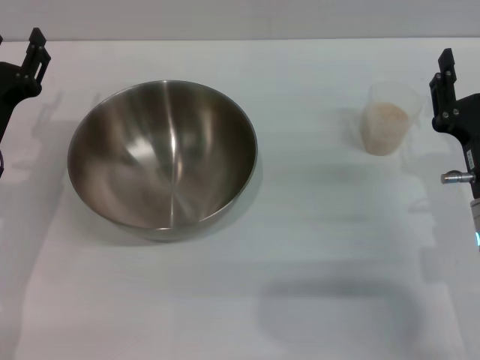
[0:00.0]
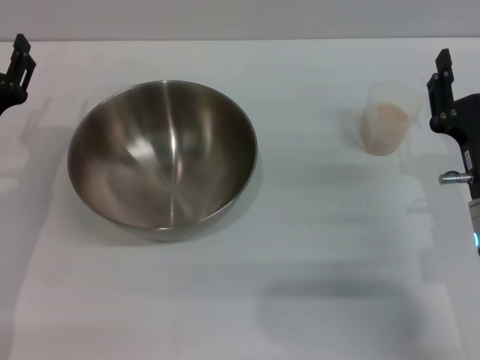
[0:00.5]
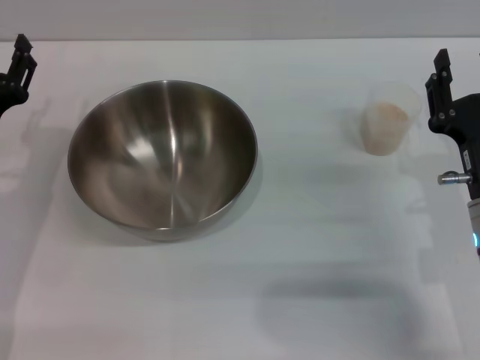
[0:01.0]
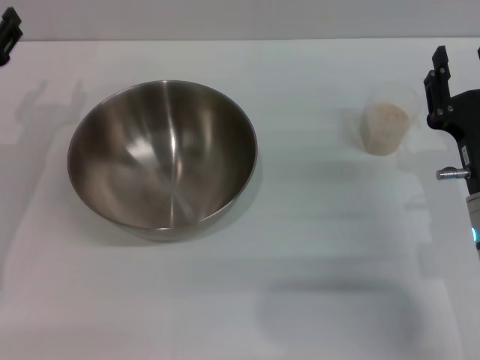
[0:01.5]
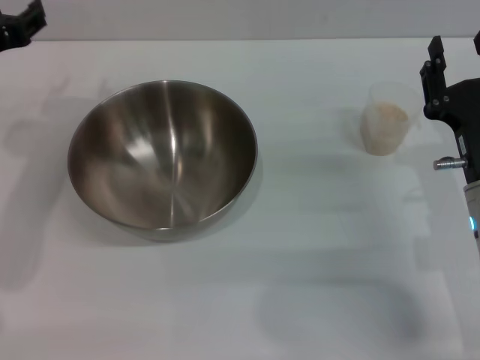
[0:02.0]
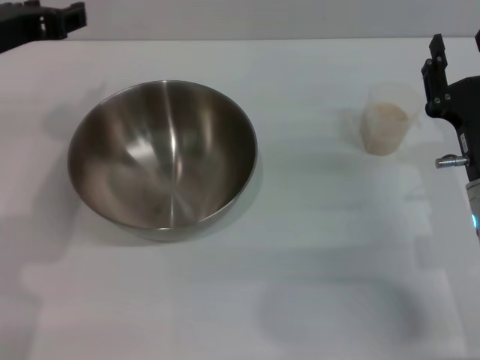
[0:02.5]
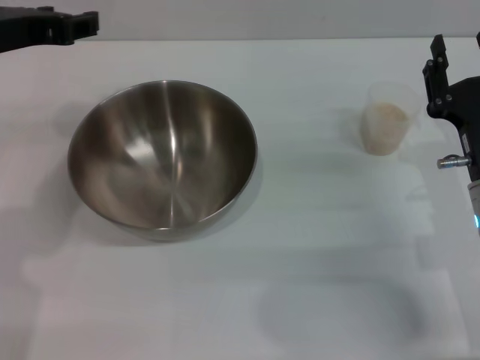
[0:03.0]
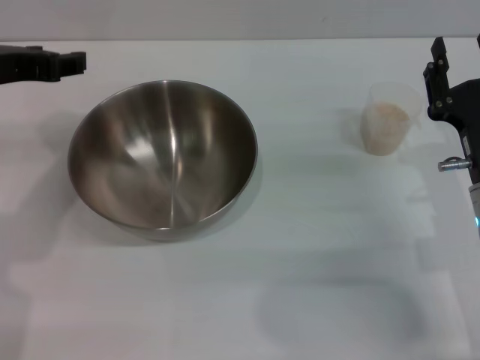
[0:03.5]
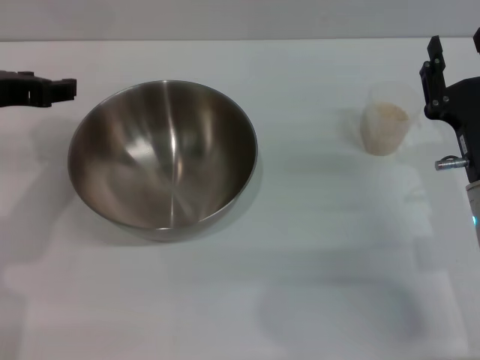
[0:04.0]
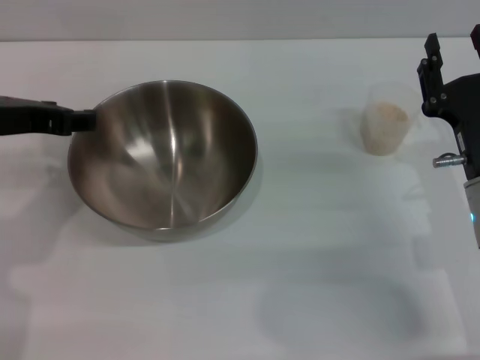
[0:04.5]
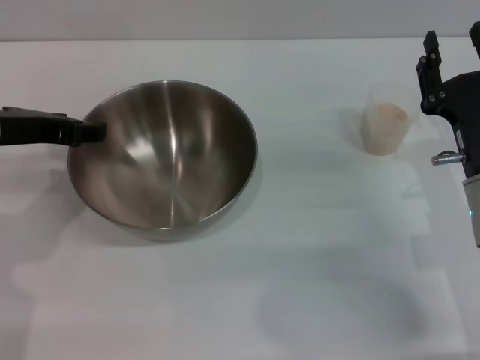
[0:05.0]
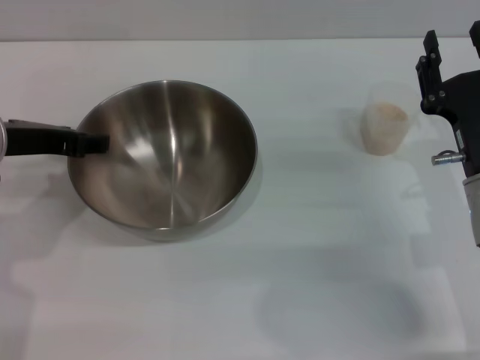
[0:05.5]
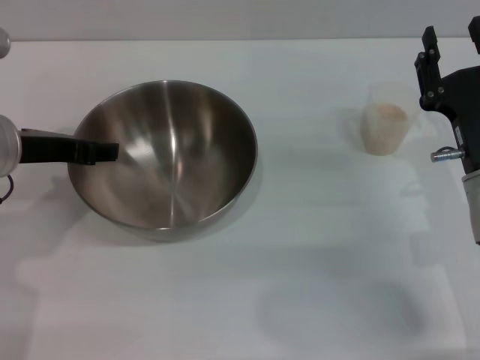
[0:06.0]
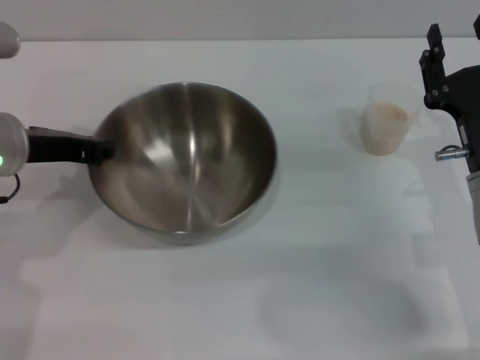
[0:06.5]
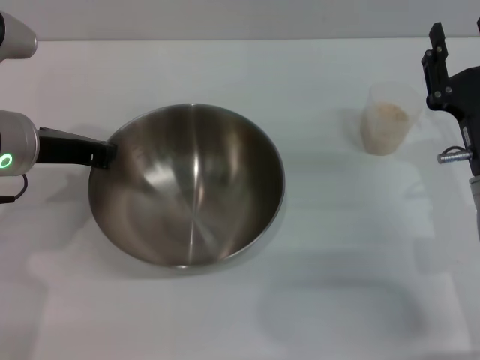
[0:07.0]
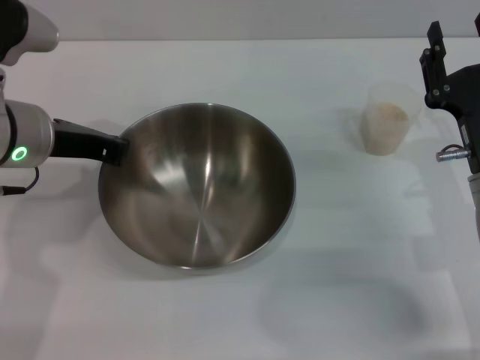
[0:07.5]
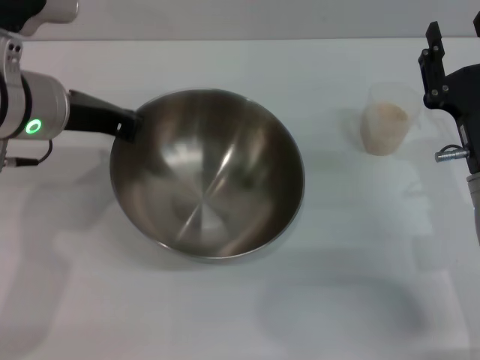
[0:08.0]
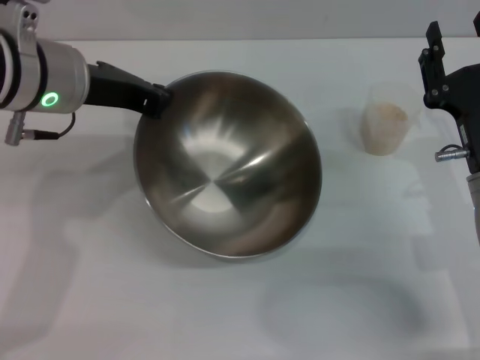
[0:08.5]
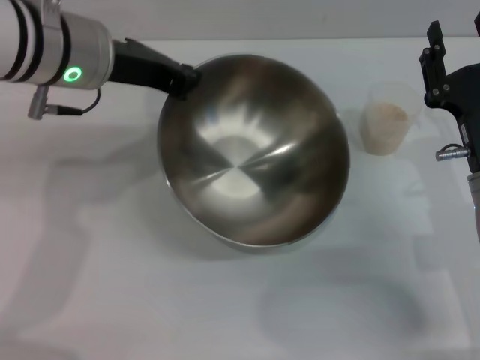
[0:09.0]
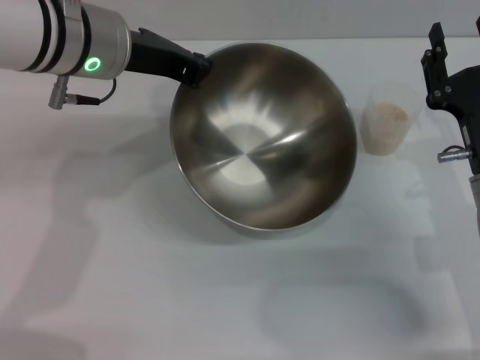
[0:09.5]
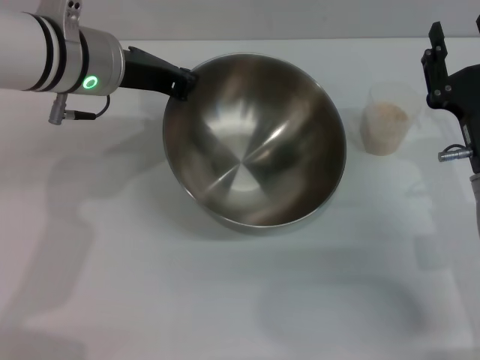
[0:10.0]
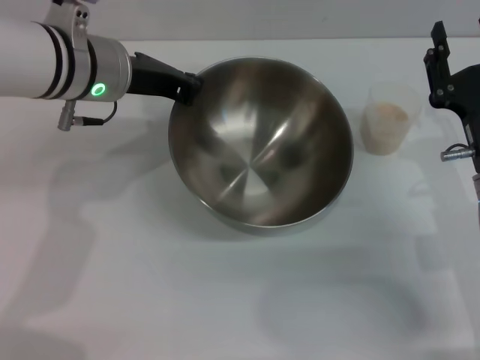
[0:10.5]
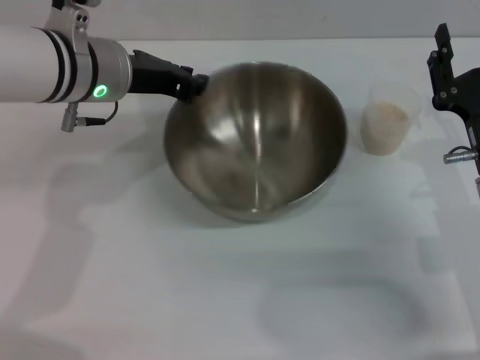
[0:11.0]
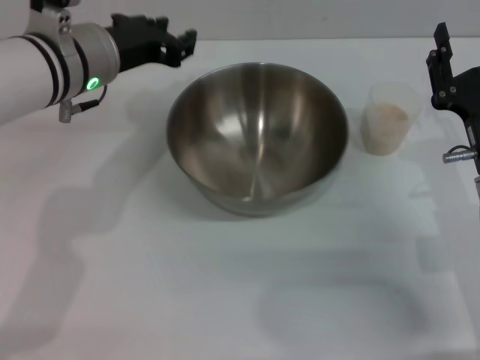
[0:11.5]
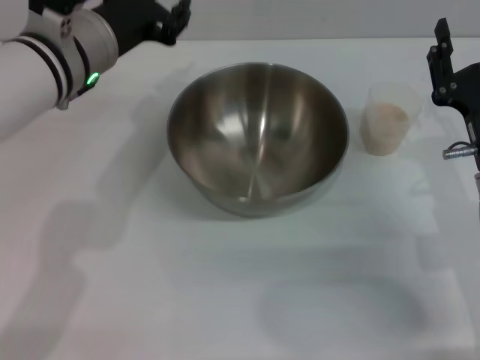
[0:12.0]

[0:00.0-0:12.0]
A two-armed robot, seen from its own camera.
Task of the whole recording: Place the bowl in the middle of the table with one hand and pour the rice from the grain cup into it with the other hand.
Step, 0:00.0 to 0:08.0: Pick up the bowl with the left gripper.
Step, 0:08.5 to 0:11.5: Place the bowl in the center of view with the left gripper.
0:00.0 to 0:02.0: The left gripper moves upward, roughly 10 cm.
0:04.0 to 0:06.0: The left gripper ends up about 5 cm from where it was.
0:06.0 to 0:08.0: The left gripper changes place by about 5 cm, and closes its fingers.
0:08.0 to 0:10.0: The left gripper changes place by about 5 cm.
0:10.0 to 0:12.0: The left gripper opens.

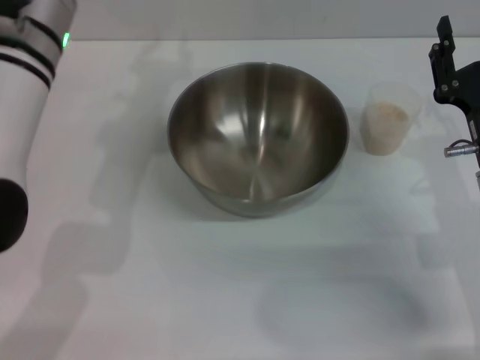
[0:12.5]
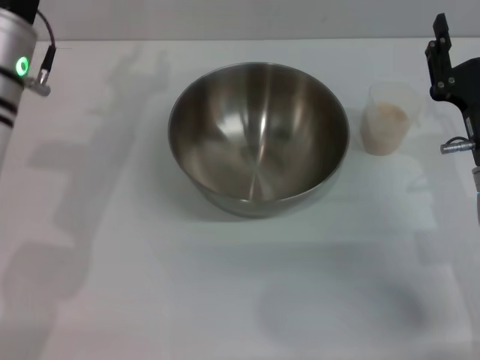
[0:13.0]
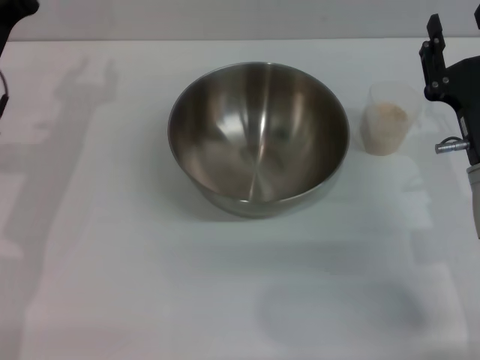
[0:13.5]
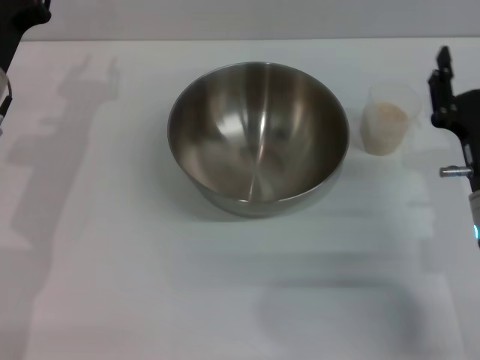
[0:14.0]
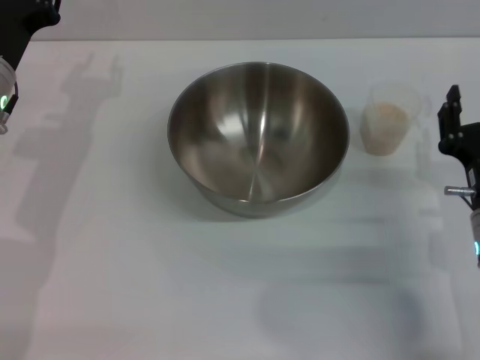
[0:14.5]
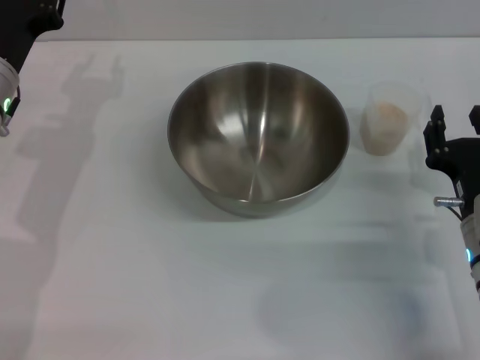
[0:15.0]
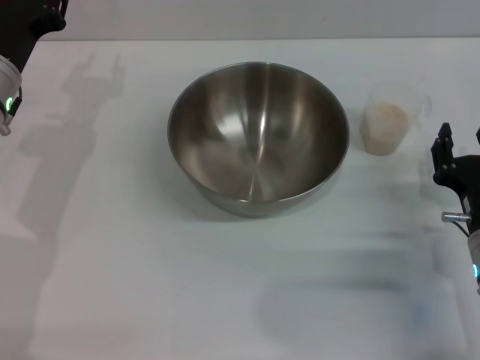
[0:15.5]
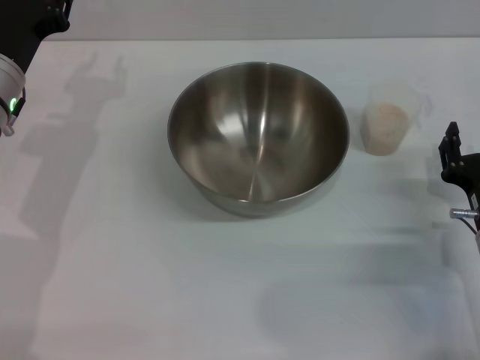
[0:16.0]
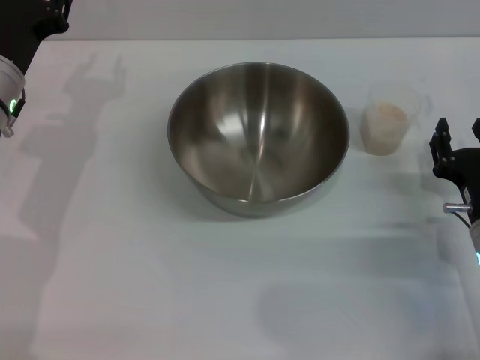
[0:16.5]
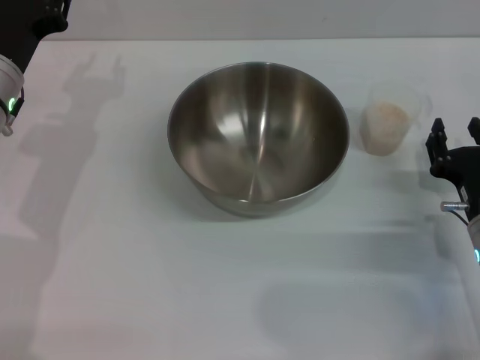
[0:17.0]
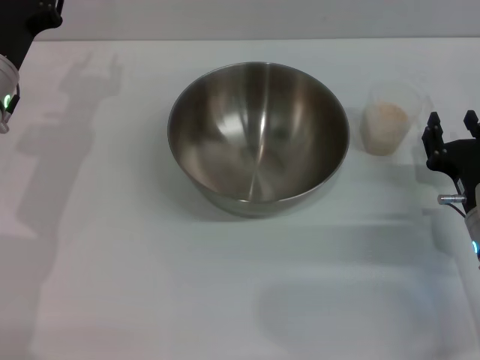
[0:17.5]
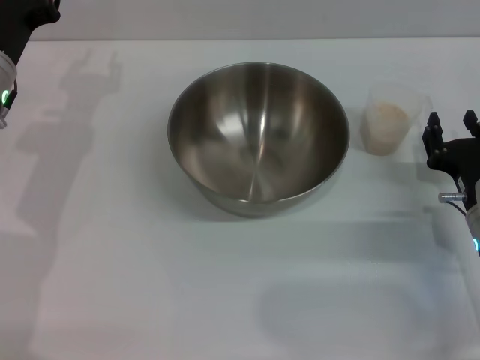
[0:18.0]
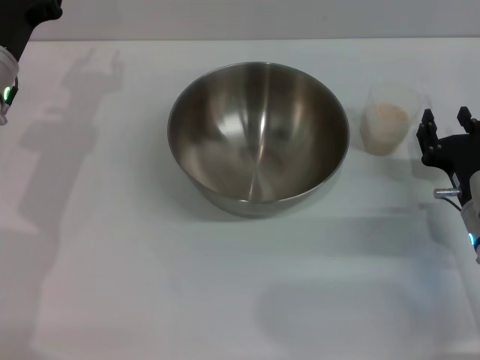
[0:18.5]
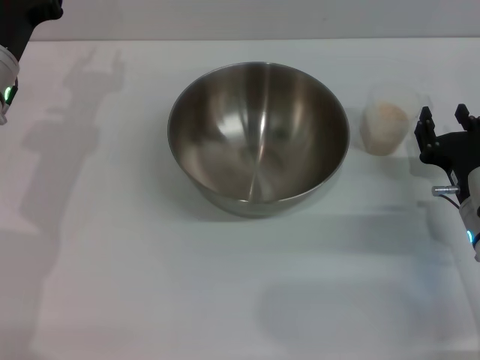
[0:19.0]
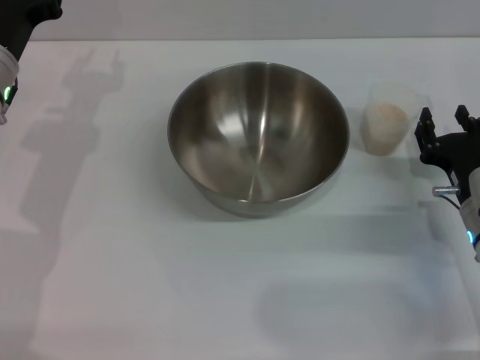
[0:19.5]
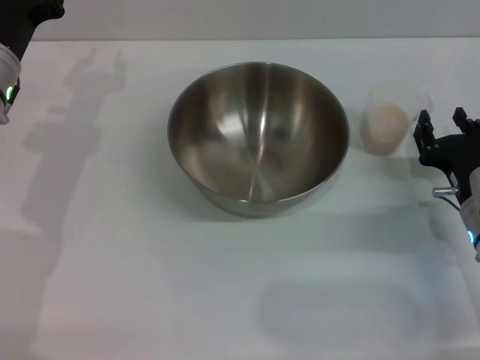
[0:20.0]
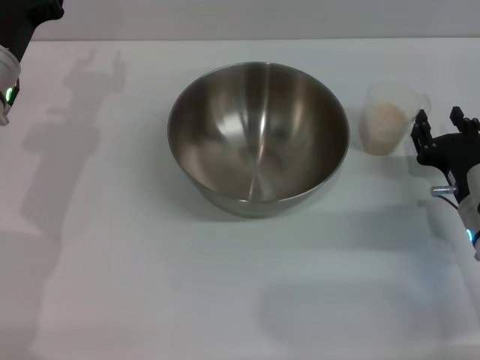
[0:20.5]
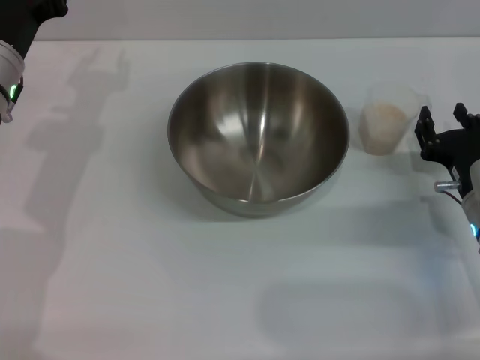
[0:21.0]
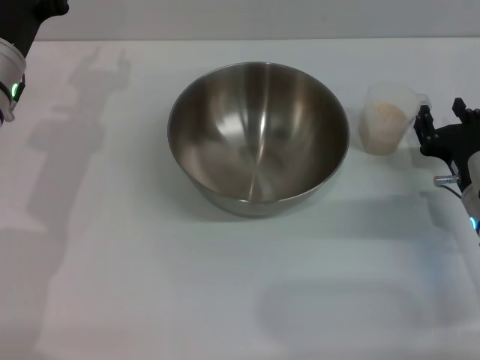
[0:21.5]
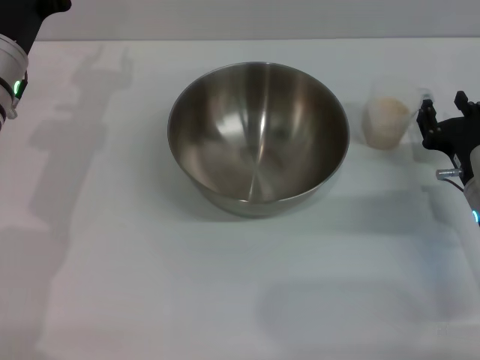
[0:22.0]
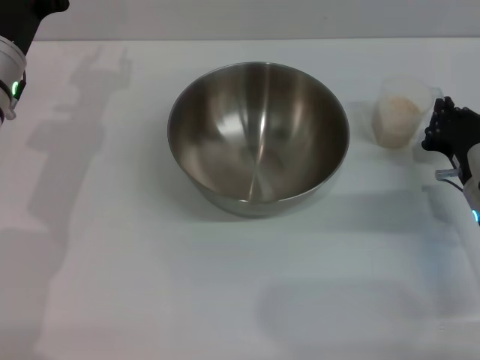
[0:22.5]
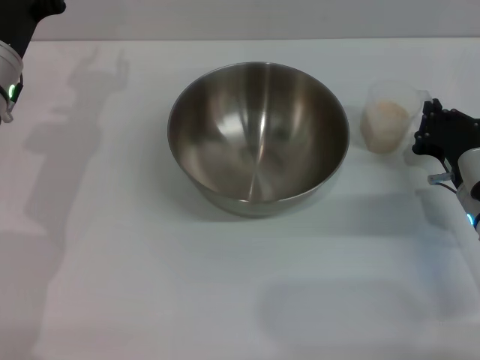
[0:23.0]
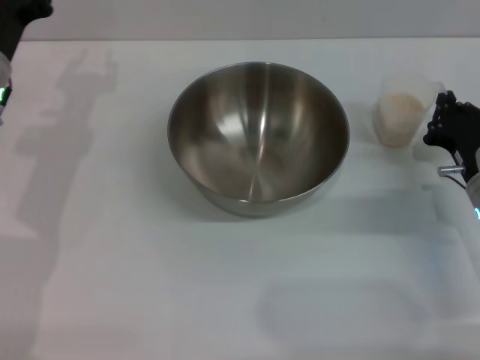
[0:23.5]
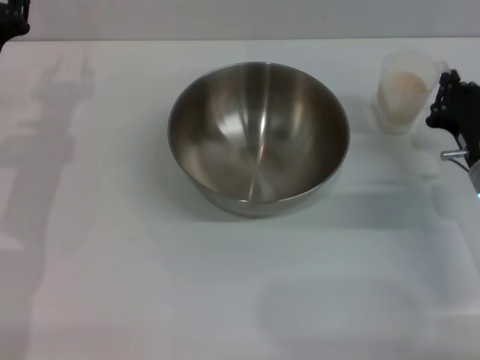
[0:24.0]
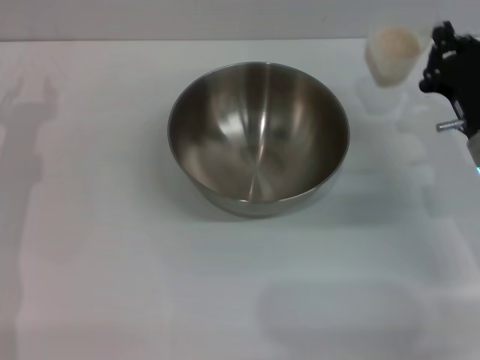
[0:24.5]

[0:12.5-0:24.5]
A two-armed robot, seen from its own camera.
Task of the whole recording: Place the bowl in the middle of the table with one hand and pour the rice from the grain cup into it with the other hand.
Step, 0:12.5 to 0:24.0: Pick up the cup with rice in it with the right gripper.
0:12.5 to 0:14.5: The left gripper moves to the left and downward, approximately 10 cm.
0:14.5 to 0:18.5: There are only small adjustments of the grippers.
0:18.5 to 0:20.5: The two grippers keep their place.
0:20.5 to 0:22.5: The right gripper closes up.
0:22.5 to 0:24.5: The left gripper travels to the left by about 5 cm.

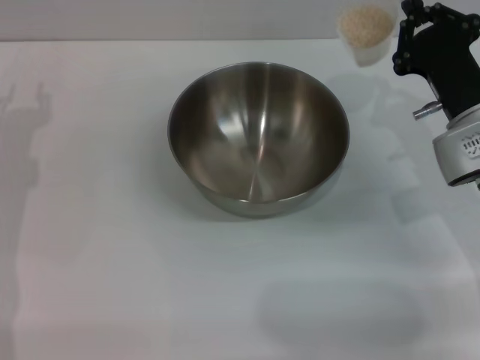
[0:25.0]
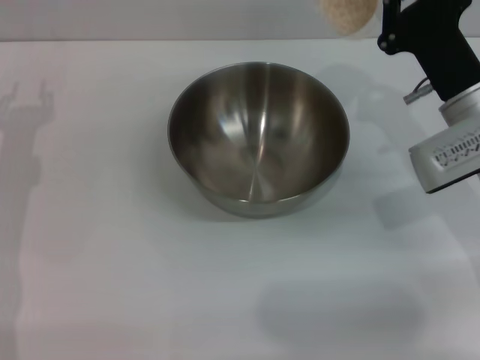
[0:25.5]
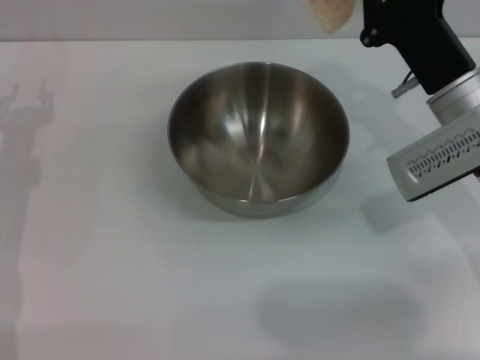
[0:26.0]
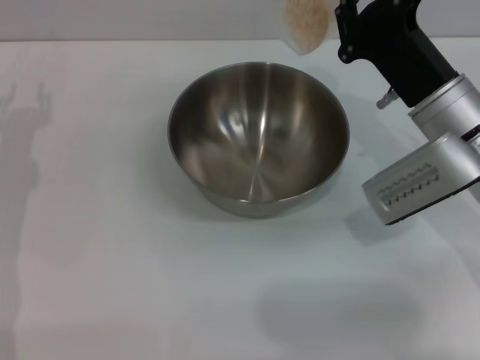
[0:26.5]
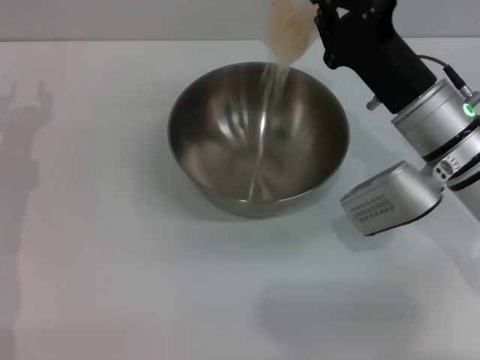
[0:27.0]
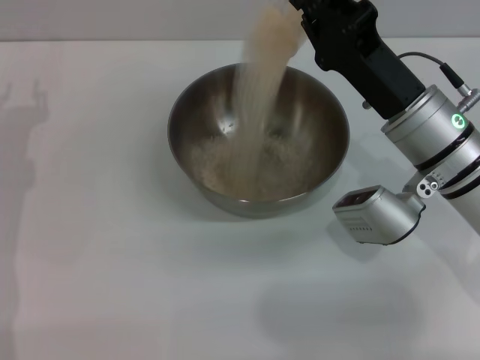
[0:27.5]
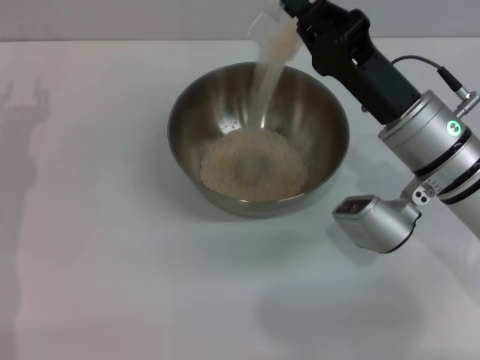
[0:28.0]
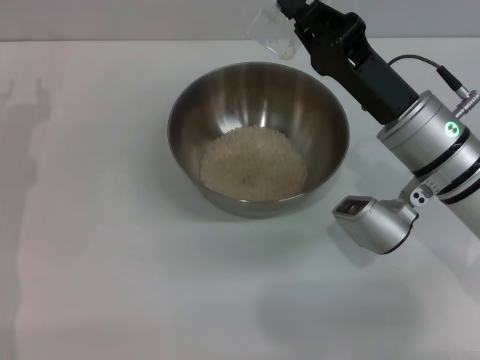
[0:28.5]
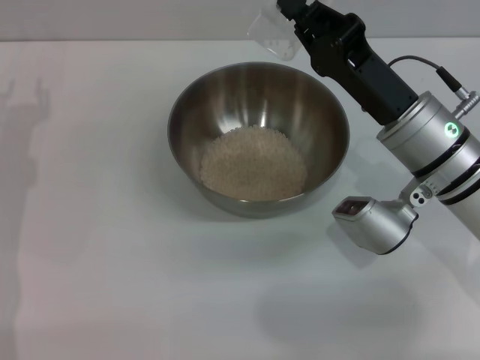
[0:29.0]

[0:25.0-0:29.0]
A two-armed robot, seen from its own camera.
Task of the whole recording: Place the bowl in the middle of the table with one hand and pour the rice from the grain cup into it with the other hand.
0:25.0 to 0:27.0: The right gripper travels to the left by roughly 5 cm.
